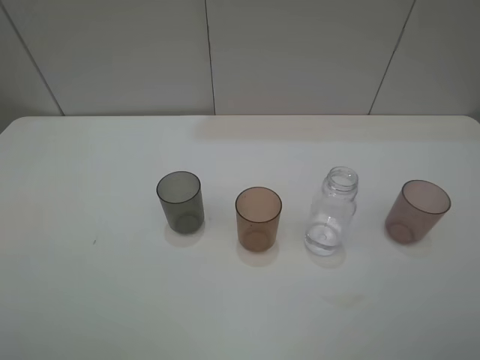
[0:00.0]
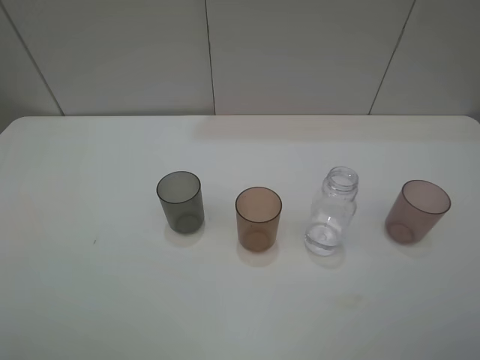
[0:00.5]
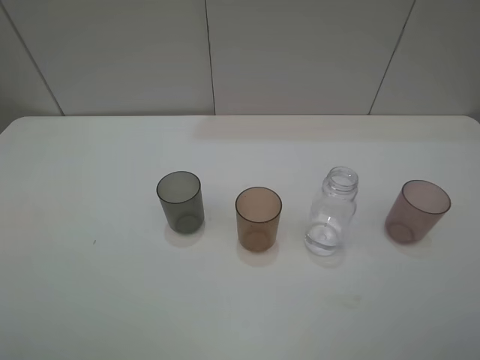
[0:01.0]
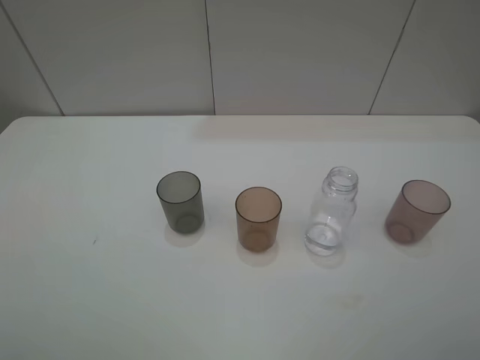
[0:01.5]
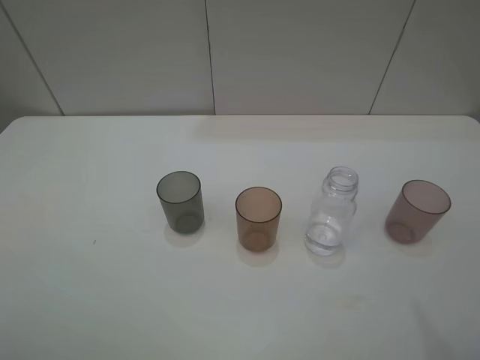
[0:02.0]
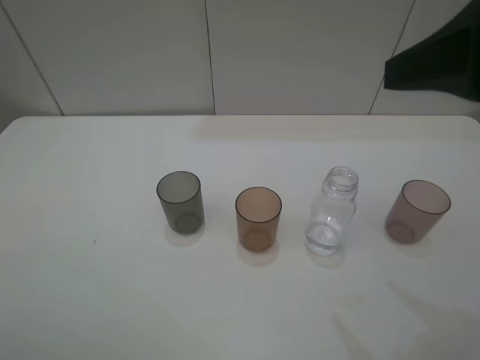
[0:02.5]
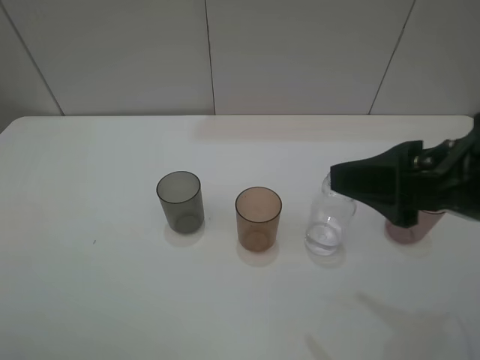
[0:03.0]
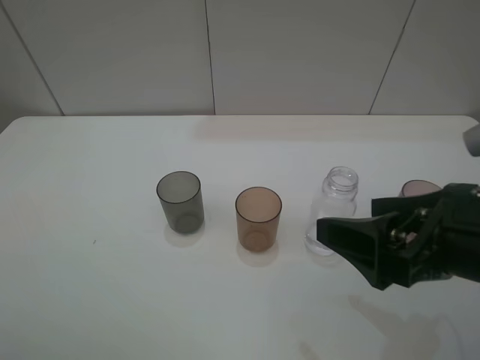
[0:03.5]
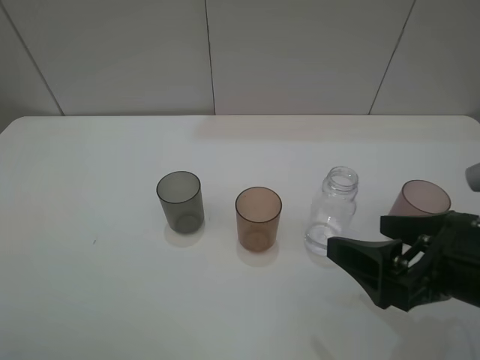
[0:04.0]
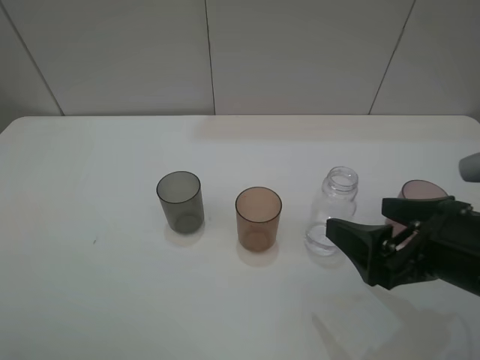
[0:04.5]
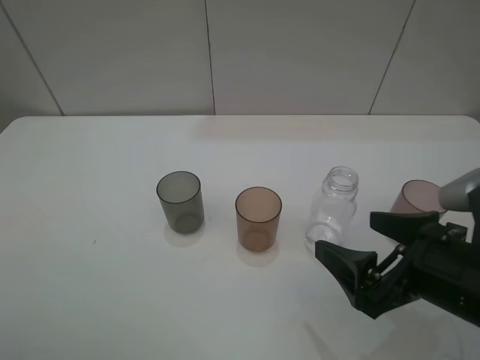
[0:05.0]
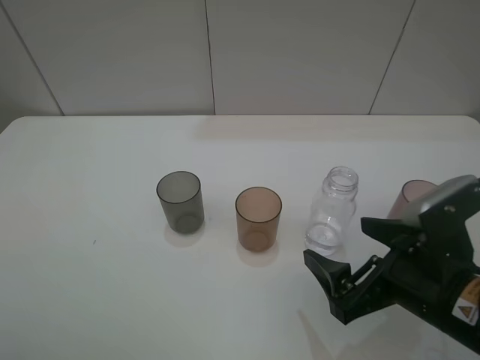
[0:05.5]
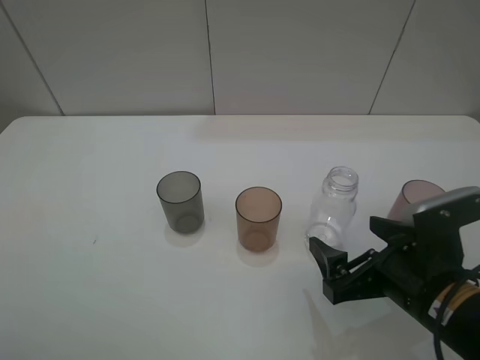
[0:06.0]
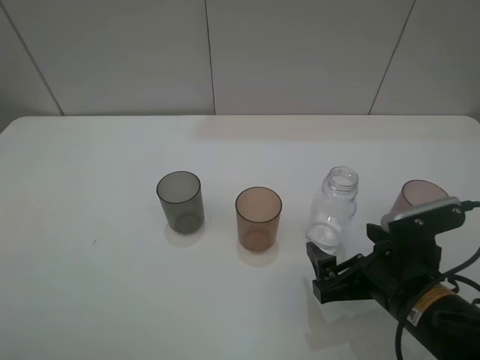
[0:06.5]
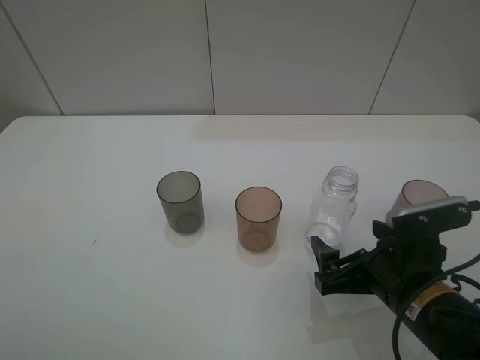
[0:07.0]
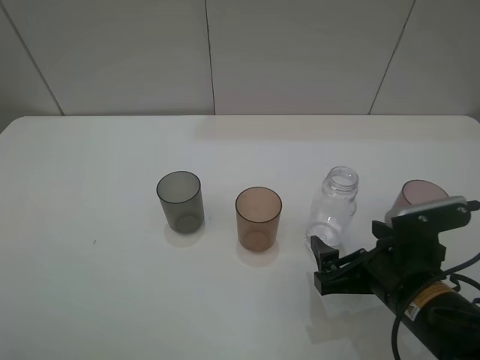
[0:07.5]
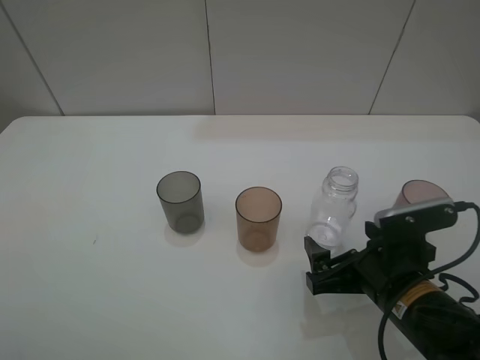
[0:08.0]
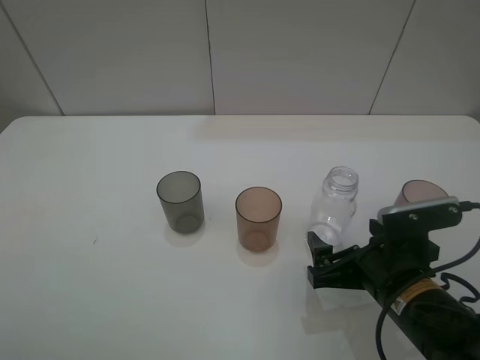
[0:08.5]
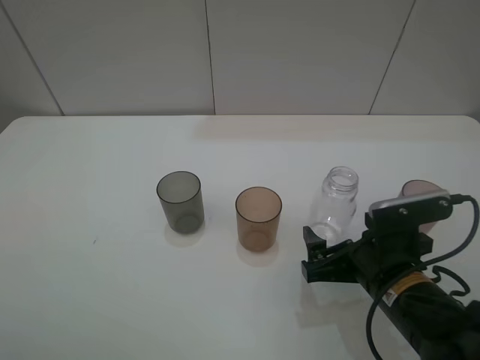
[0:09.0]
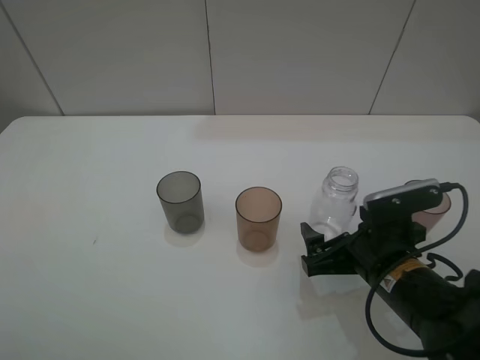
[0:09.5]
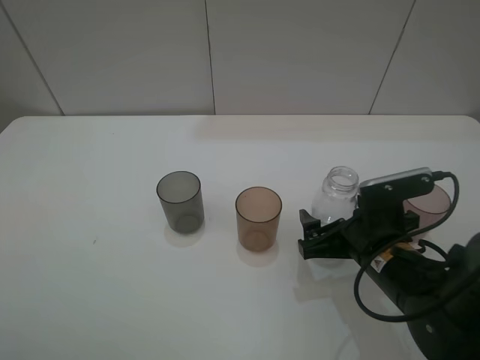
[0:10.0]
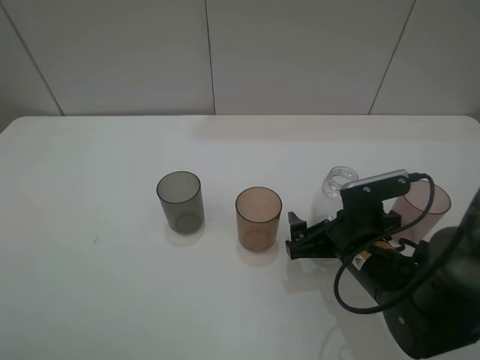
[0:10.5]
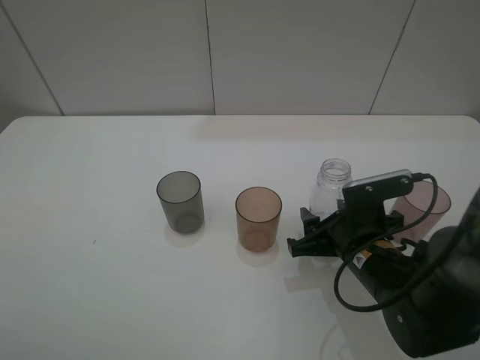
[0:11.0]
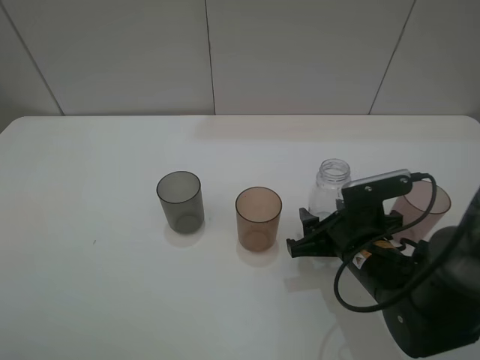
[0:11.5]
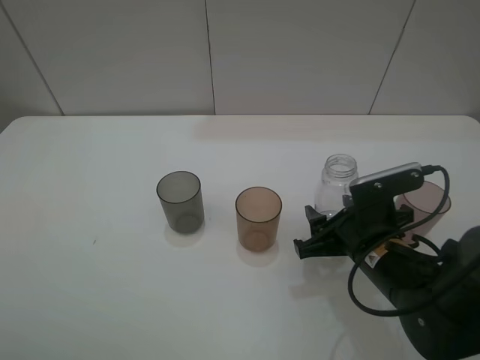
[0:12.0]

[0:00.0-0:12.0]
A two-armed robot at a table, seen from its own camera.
Task of the whole recording: pick up the bottle filled with water and pour water into the middle cup of the three cups.
Step, 0:00.0 to 0:10.5: Grasp the transparent bottle with the right gripper.
0:02.0 to 0:04.0: The right gripper is displaced downward by some 20 cm.
0:04.0 to 0:06.0: The right gripper travels downward by approximately 5 cm.
0:06.0 to 0:08.0: The grippers stay close to where they were, moving slightly.
0:08.0 to 0:10.0: The grippers stay close to where they were, moving slightly.
0:10.0 to 0:12.0: The right gripper closes up.

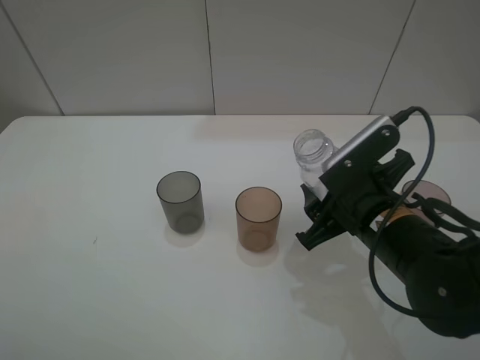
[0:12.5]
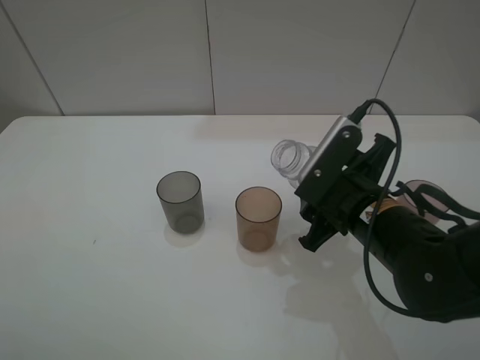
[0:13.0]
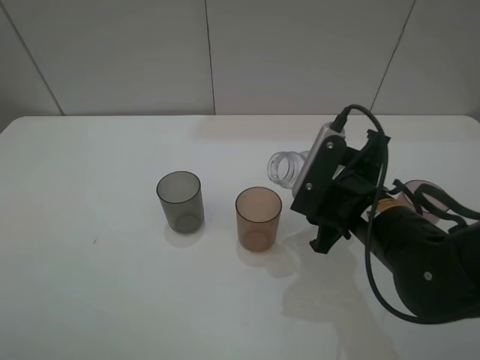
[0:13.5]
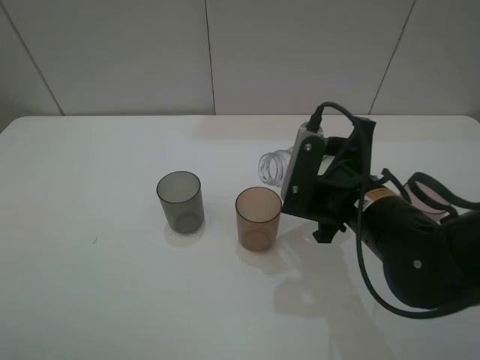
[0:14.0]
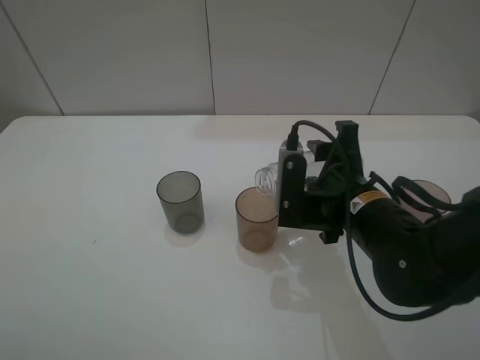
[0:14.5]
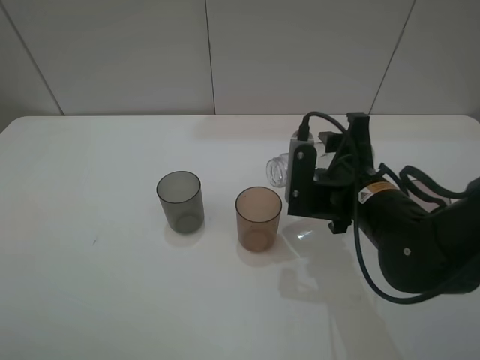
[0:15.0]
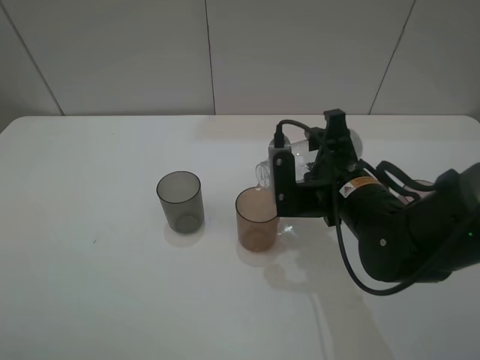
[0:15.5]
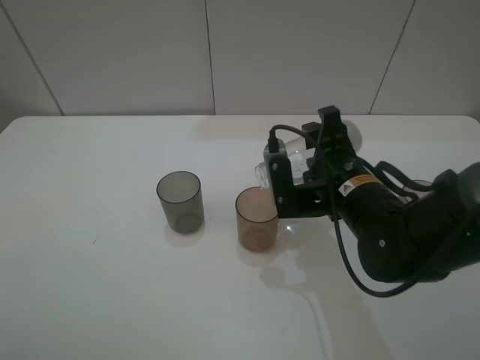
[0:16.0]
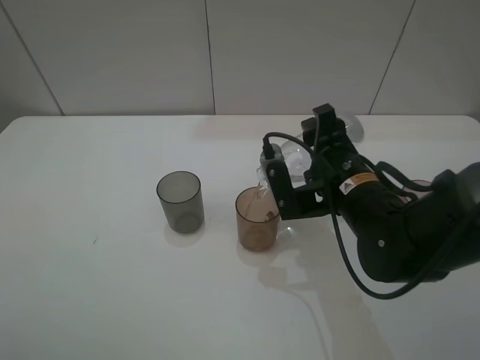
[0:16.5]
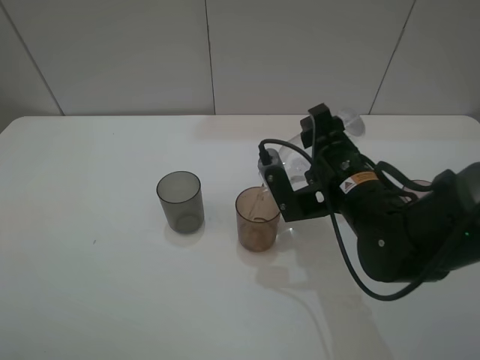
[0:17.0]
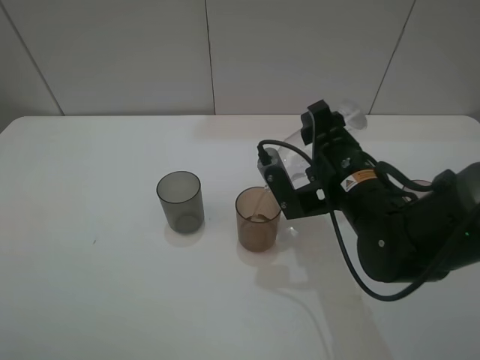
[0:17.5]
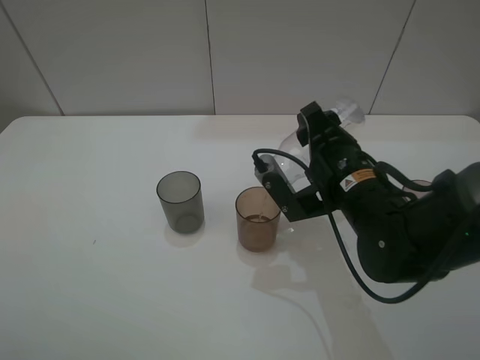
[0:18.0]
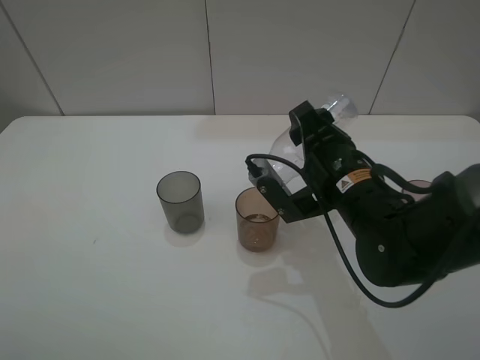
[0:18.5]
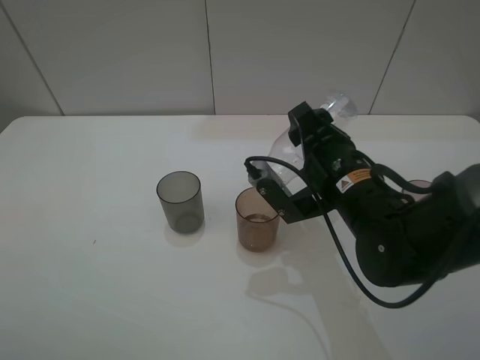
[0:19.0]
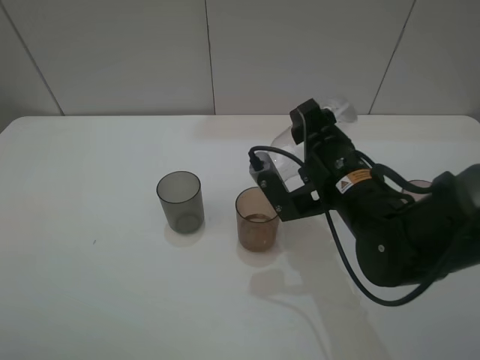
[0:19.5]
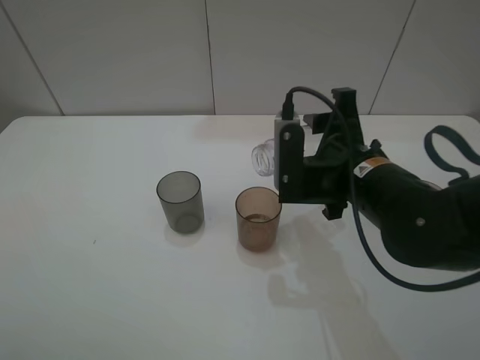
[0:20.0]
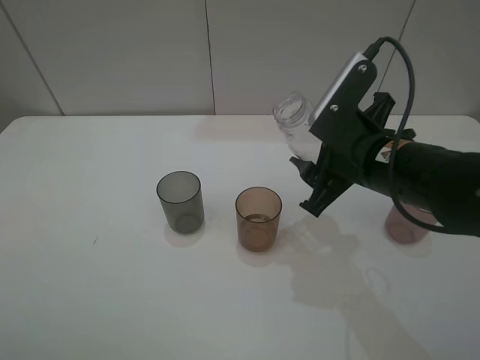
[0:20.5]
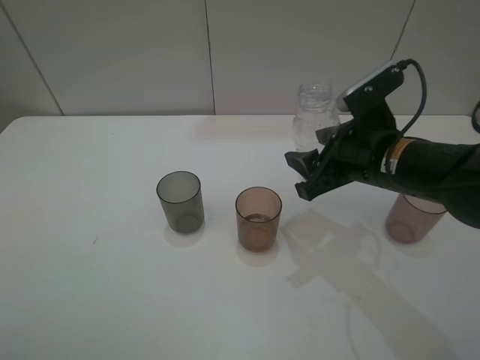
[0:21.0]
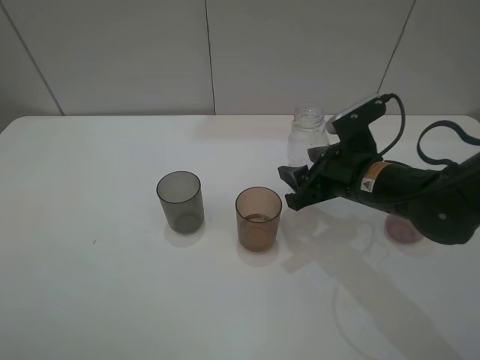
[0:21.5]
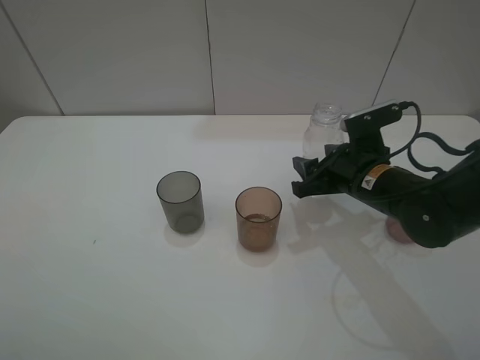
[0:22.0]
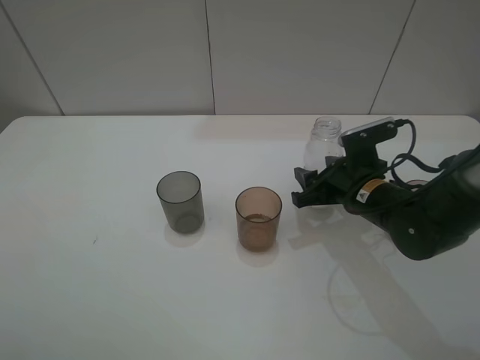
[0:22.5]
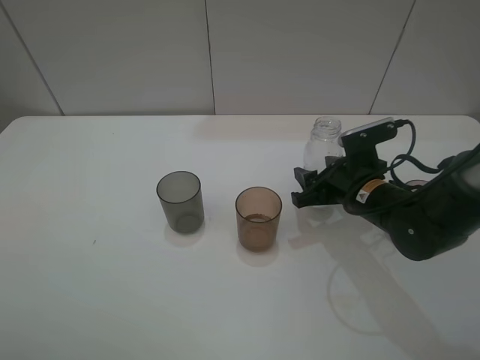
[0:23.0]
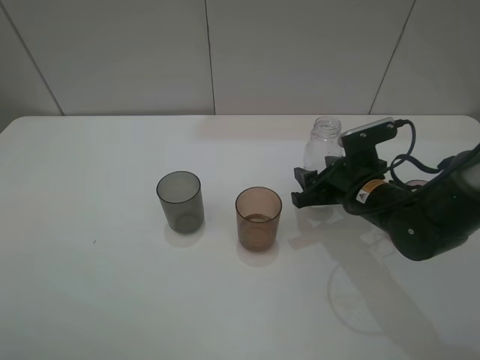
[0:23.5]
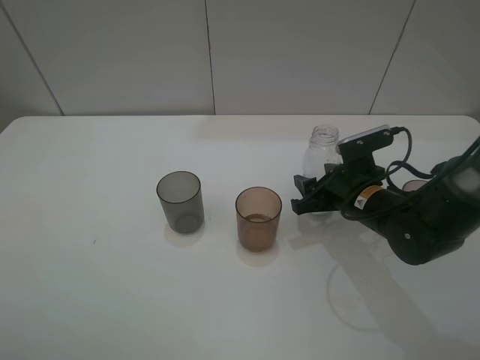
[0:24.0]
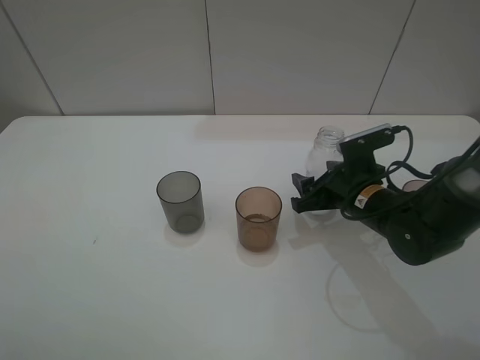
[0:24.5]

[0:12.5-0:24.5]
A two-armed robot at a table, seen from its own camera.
Task of the whole recording: pick up the bottle filled with water and pour water into the middle cup of the three cups.
Step, 0:12.5 to 0:16.0: Pour water from transparent bottle tobrown cup with the right gripper.
0:16.5 to 0:18.5: The grippers make only small movements.
0:20.5 to 0:22.5: The right gripper travels downward by some 10 cm.
0:22.5 to 0:24.5: Both grippers stay about where they are.

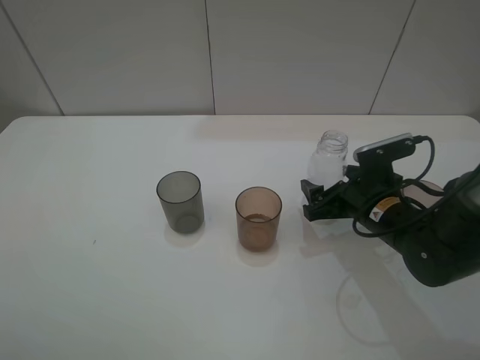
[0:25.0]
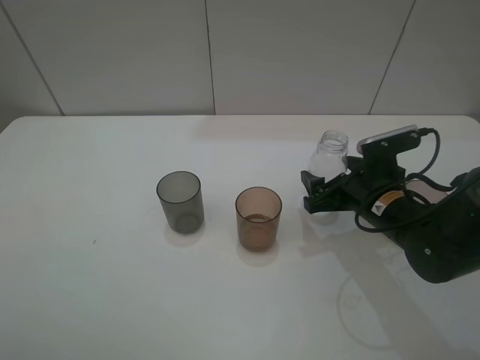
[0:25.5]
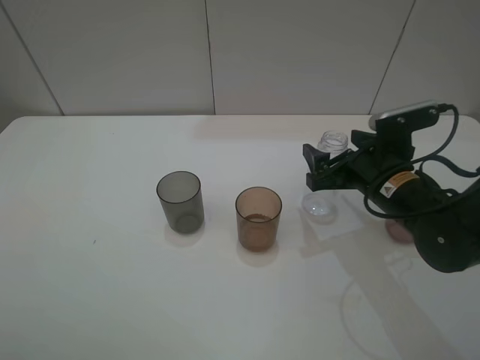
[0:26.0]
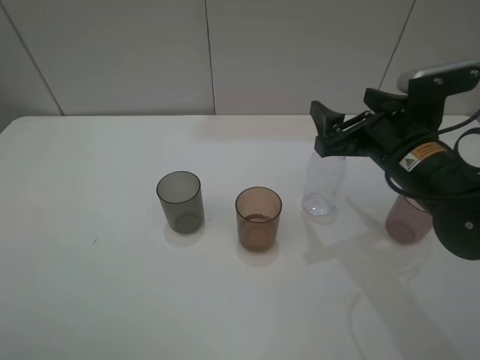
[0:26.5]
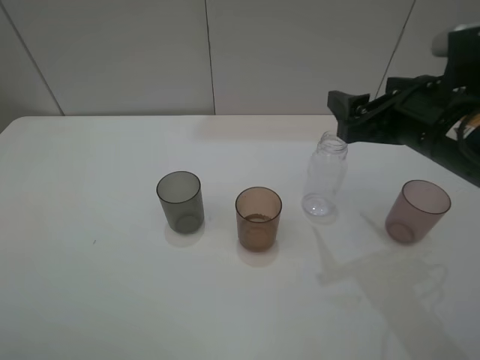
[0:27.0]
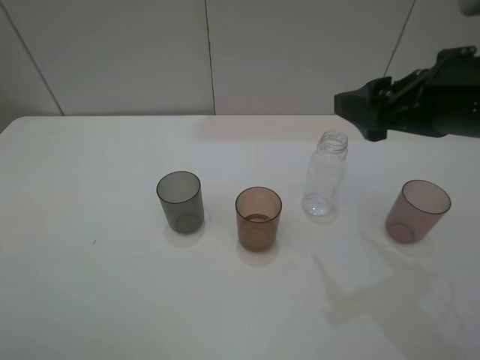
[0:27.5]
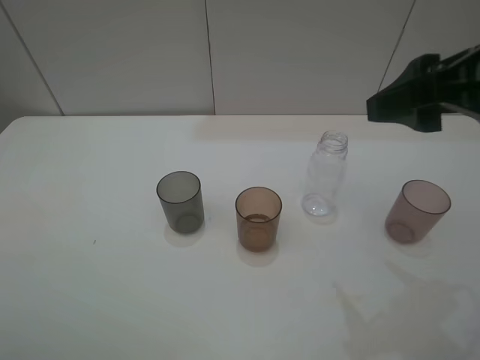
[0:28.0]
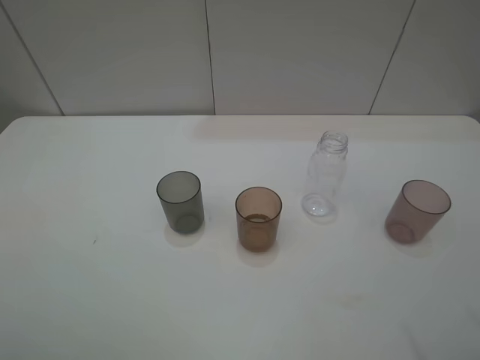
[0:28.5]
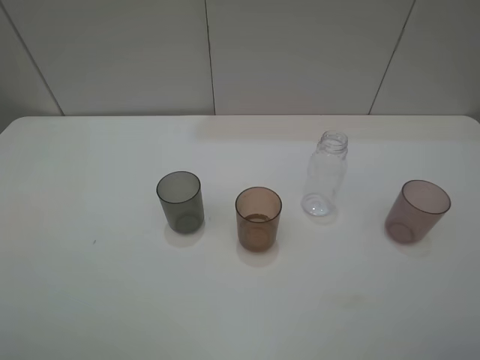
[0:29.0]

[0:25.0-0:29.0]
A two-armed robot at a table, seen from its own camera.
Task of the whole recording: pick up the bottle filled with water and pour water into the middle cup of the three cups.
0:25.0 to 0:27.0: The right gripper heads upward, covering about 15 cm.
0:27.0 to 0:29.0: The right gripper moves backward, upward and to the right, some 25 cm.
